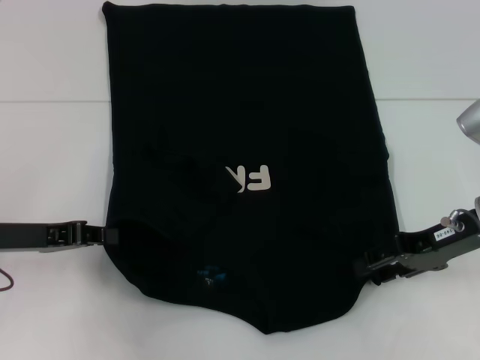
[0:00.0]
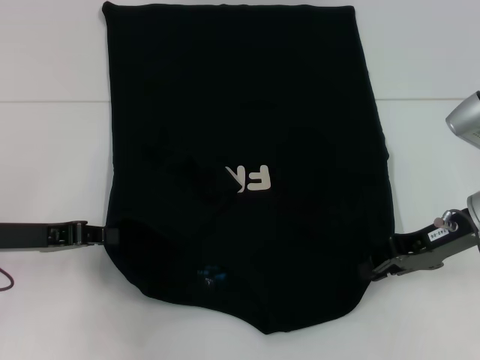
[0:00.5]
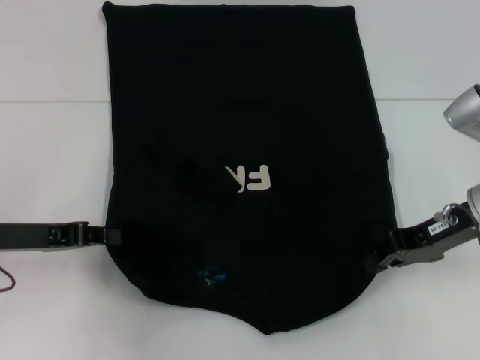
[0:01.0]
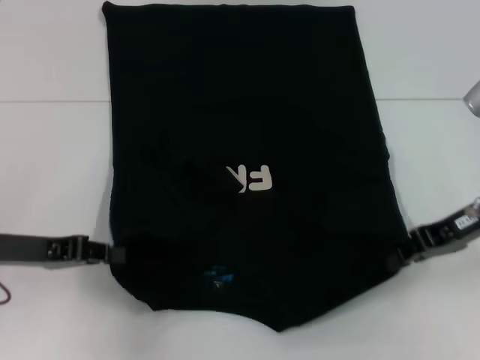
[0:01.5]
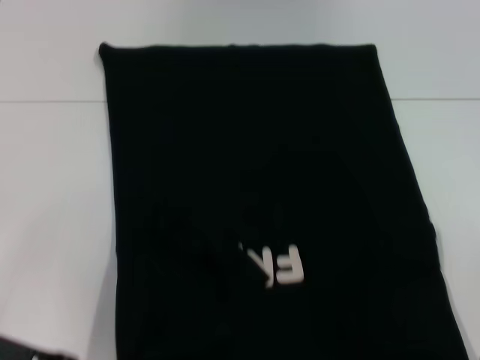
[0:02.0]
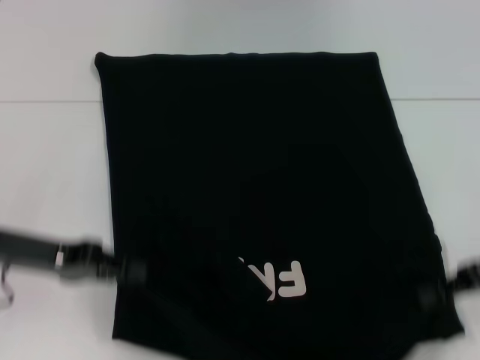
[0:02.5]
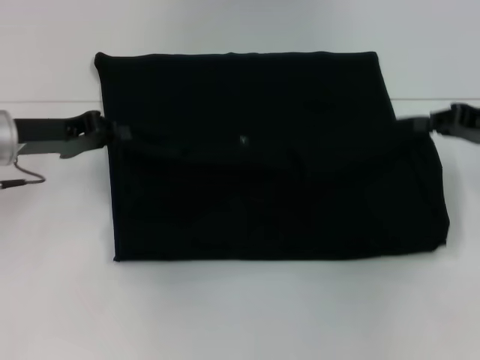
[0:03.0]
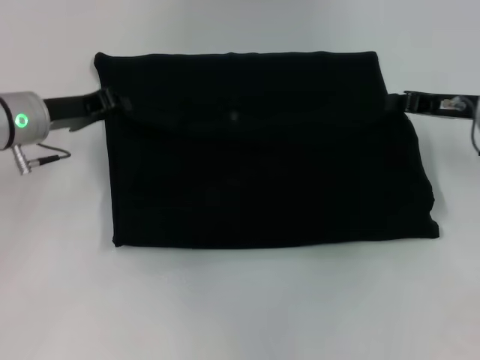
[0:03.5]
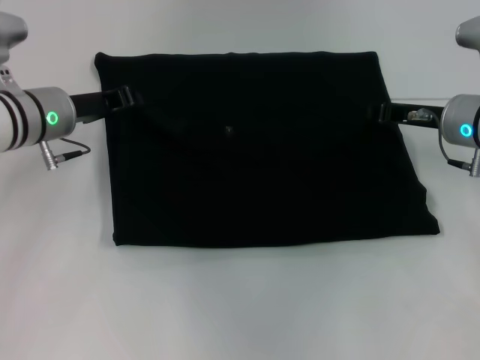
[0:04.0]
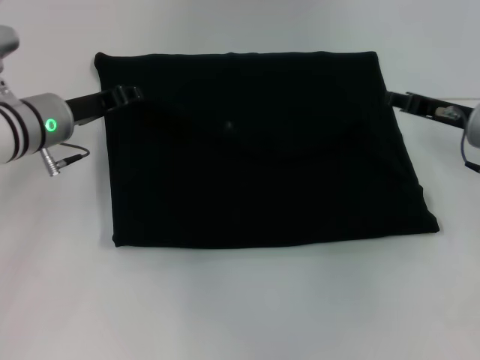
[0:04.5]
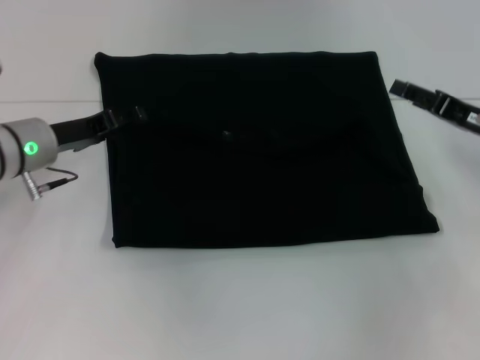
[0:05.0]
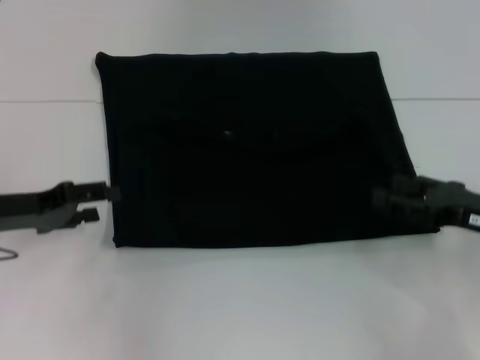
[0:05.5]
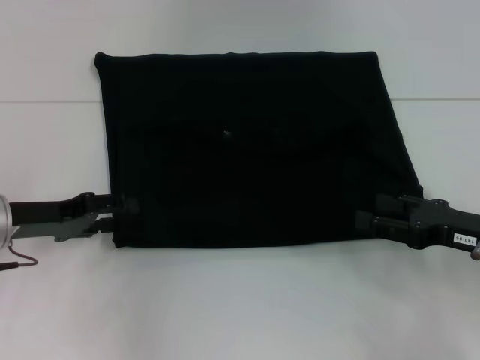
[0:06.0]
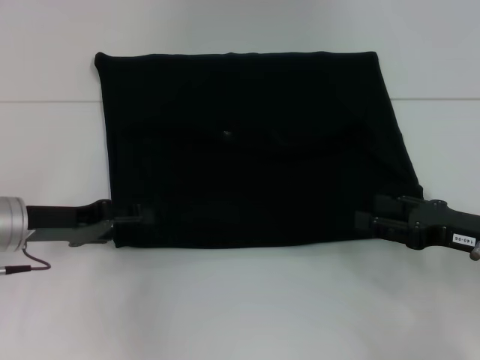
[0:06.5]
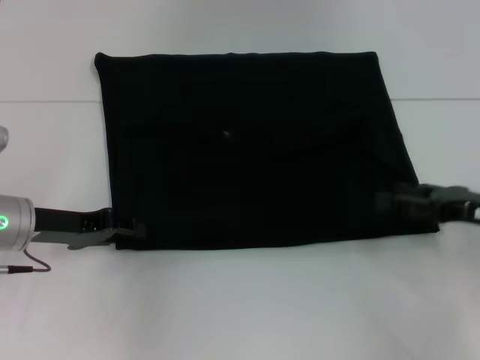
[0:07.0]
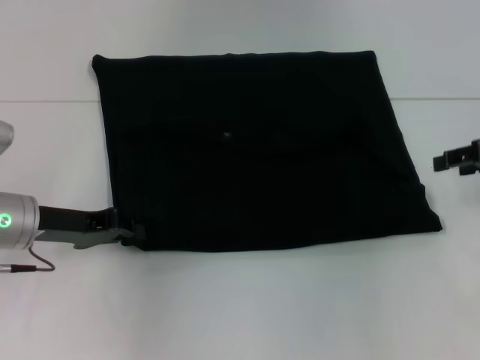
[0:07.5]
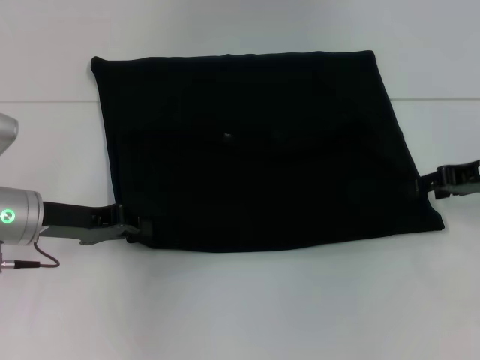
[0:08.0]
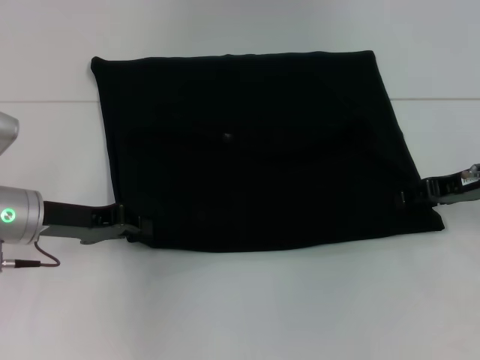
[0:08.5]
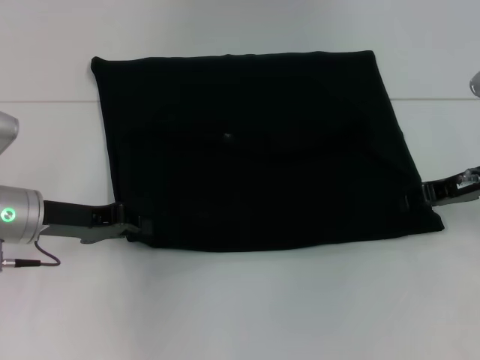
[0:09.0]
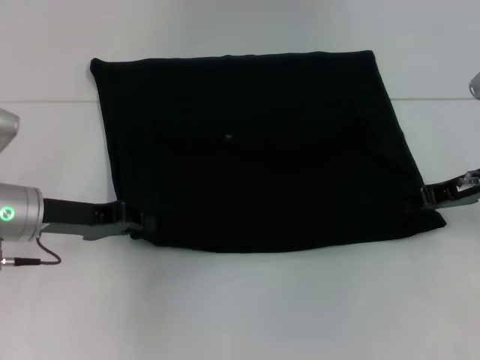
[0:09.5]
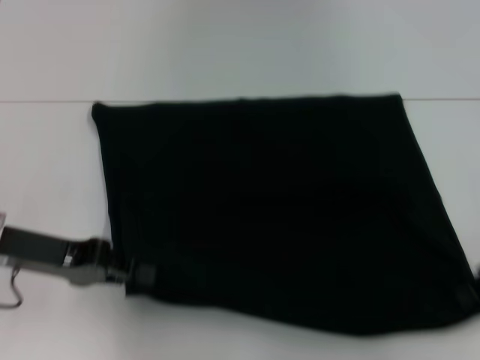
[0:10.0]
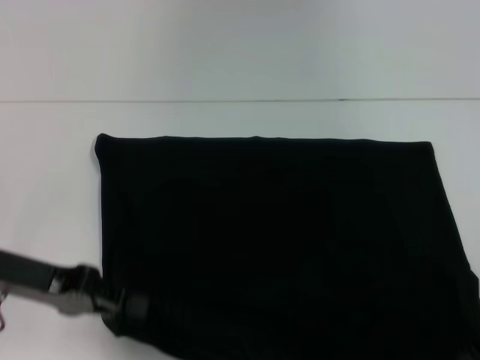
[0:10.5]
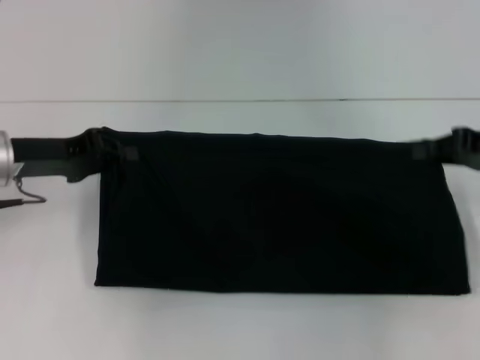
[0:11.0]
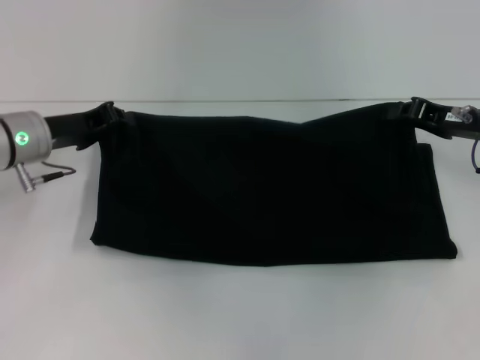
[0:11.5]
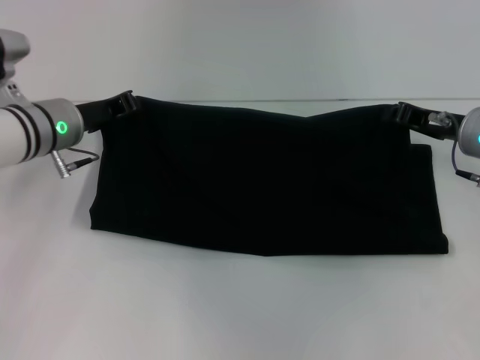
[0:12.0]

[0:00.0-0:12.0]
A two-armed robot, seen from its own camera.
Step, 0.5 to 4.5 s: Fold the clothes with your left hand.
Step, 0.5 to 4.5 s: Fold the clothes with your right hand.
Step, 5.0 to 10.0 s: Pull the clothes with your left hand.
Step, 5.0 to 10.0 s: Pull the clothes with your right hand.
0.0 to 2.0 s: Both grippers move backward, about 5 cm. The right gripper closes up.
2.0 to 4.0 s: The right gripper heads forward and to the left, covering roughly 15 cm. The left gripper shifts some 20 cm forward.
4.0 to 6.0 s: The left gripper heads backward and to the left, covering approximately 10 cm, and opens its fingers. Meanwhile the right gripper heads backward and to the right, covering about 15 cm, and opens up.
6.0 to 8.0 s: The right gripper travels forward and upward by about 10 cm. The left gripper closes up.
8.0 to 10.0 s: The right gripper moves backward, some 5 cm, and closes up, while the left gripper changes place by some 5 cm.
10.0 to 12.0 s: The left gripper is displaced forward and to the right by approximately 15 cm. The right gripper goes roughly 10 cm forward and to the left.

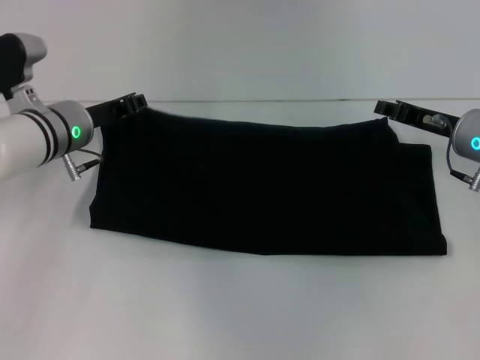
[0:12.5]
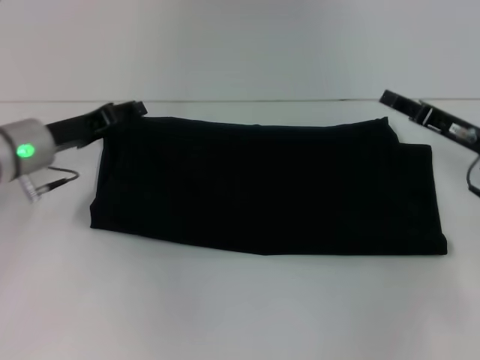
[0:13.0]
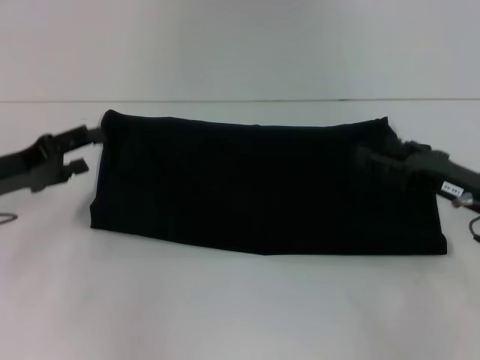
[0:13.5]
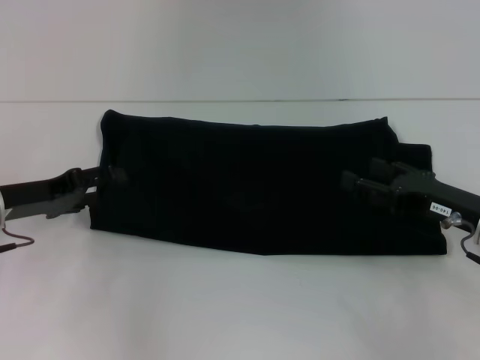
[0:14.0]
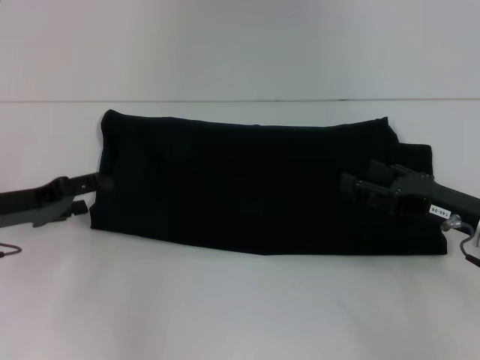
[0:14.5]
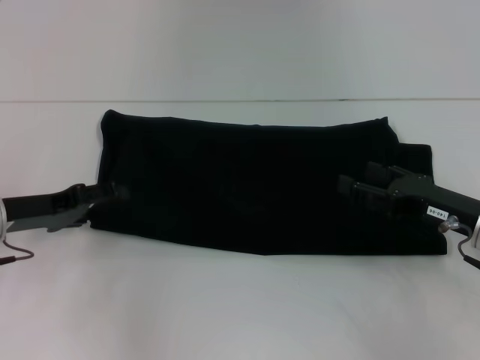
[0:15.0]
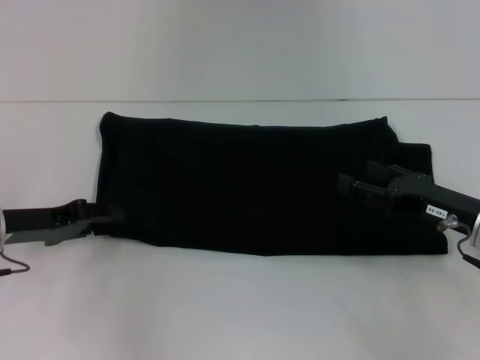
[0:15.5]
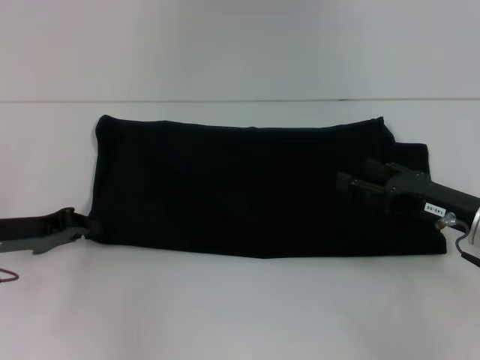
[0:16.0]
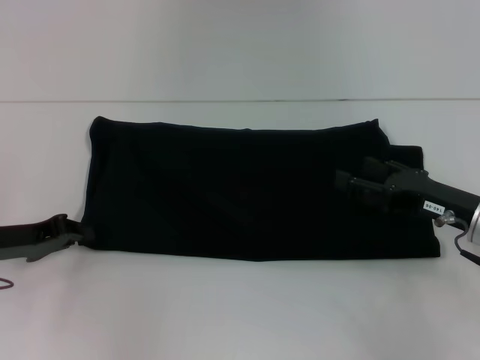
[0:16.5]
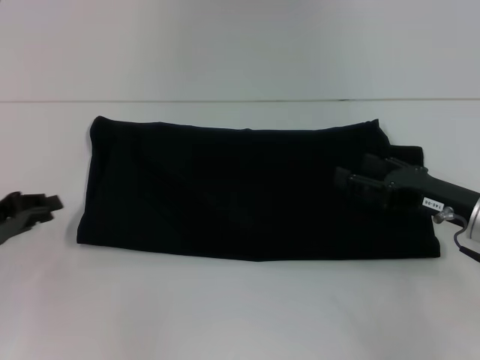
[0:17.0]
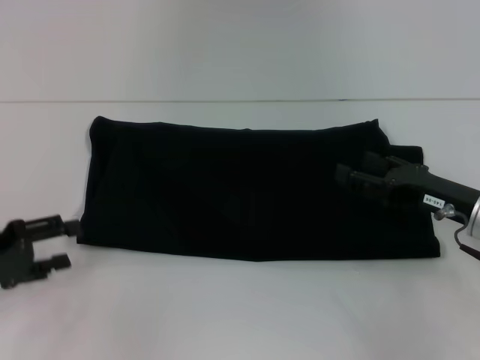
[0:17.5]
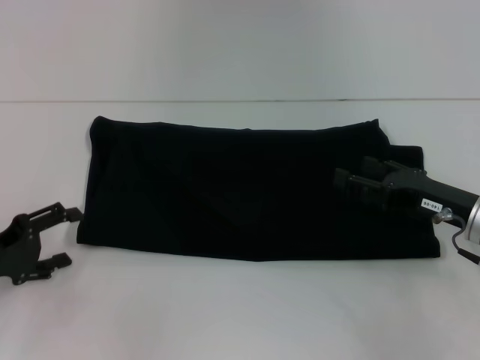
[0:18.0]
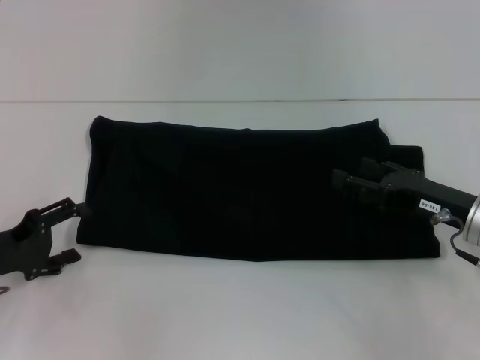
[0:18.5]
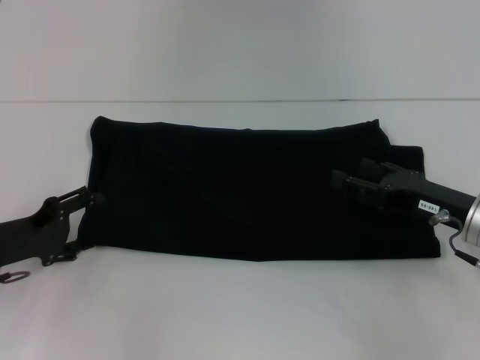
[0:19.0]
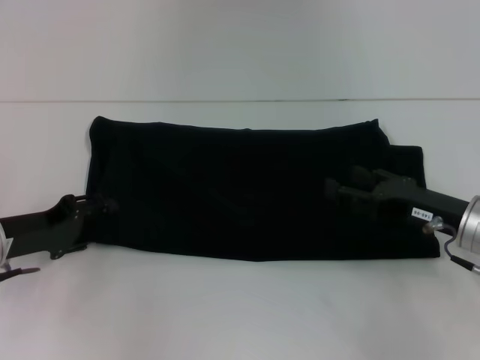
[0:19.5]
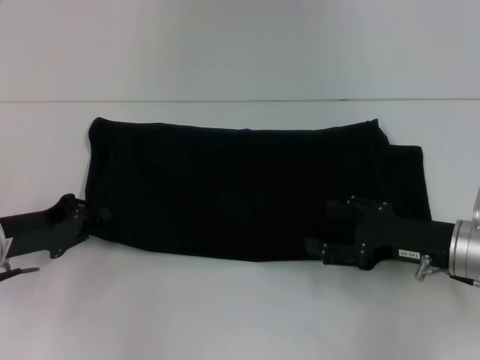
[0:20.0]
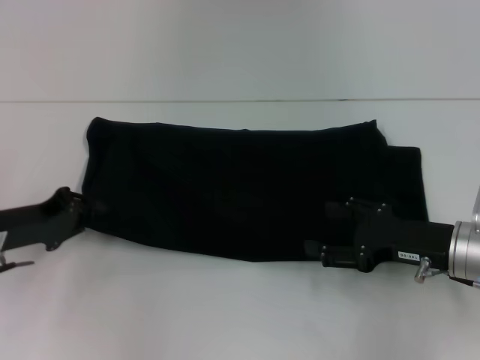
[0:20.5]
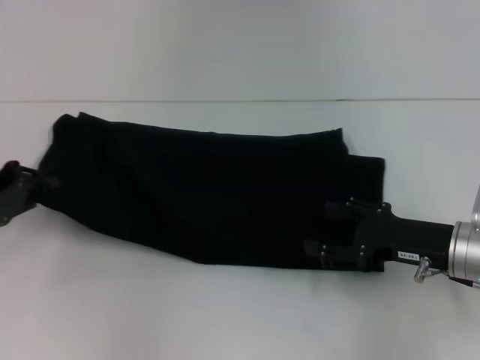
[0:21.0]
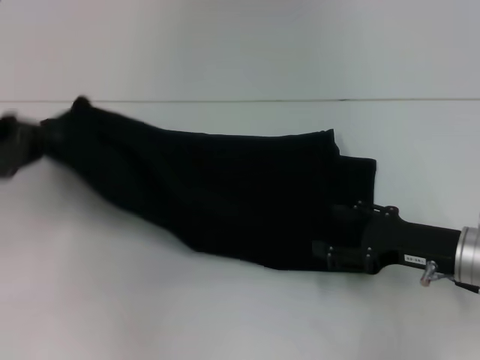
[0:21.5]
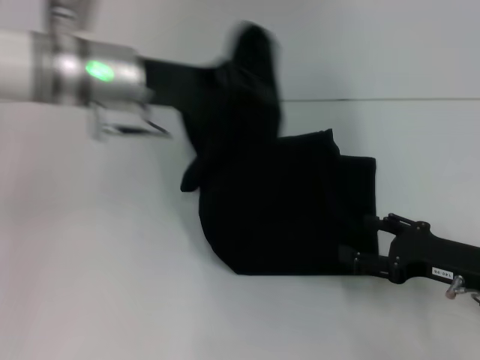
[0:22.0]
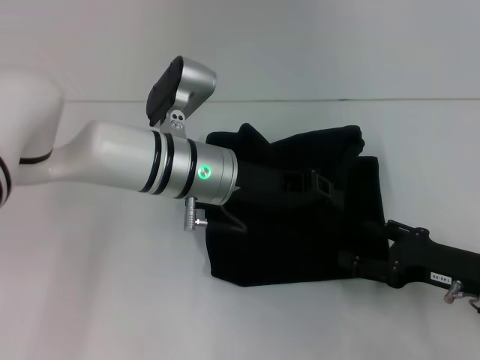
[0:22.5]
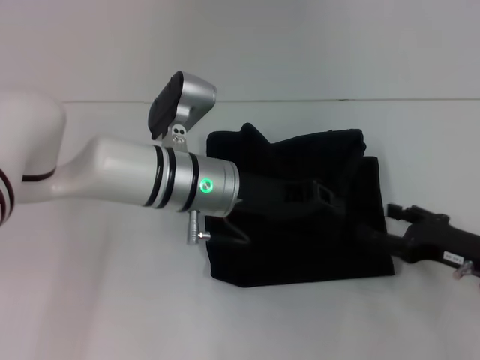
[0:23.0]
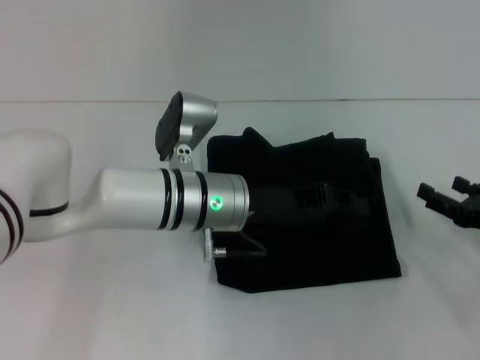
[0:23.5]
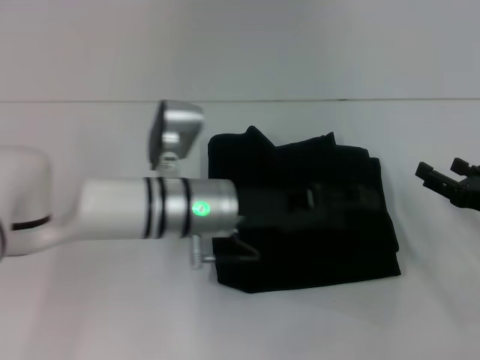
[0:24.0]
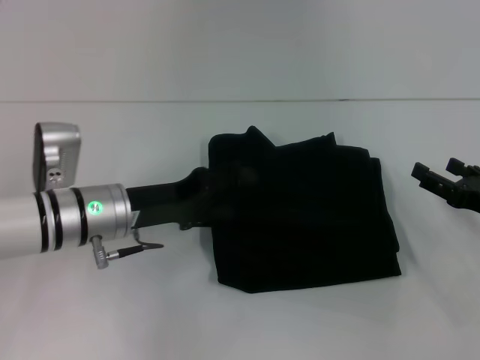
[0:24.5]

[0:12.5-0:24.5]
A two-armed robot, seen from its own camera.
Step, 12.5 to 24.0 s: Fold the clothes with your left hand.
12.5 to 14.5 s: The right gripper goes approximately 10 cm backward, and opens up. Meanwhile the left gripper is displaced to the left and backward by approximately 15 cm, and opens up.
14.5 to 16.5 s: The left gripper closes up.
16.5 to 18.5 s: The left gripper opens its fingers.
18.5 to 20.5 s: The left gripper closes up.
20.5 to 22.5 s: The left gripper shifts roughly 25 cm to the right.
22.5 to 24.5 s: The right gripper ends up roughly 5 cm from where it was. The left gripper shifts some 10 cm to the left, and opens up.

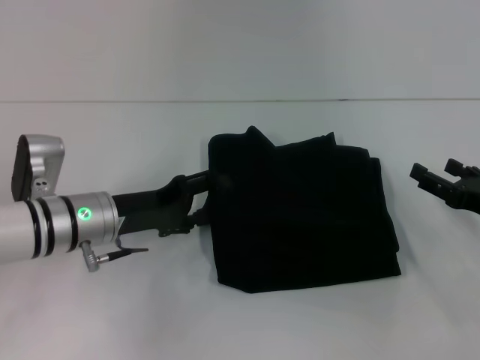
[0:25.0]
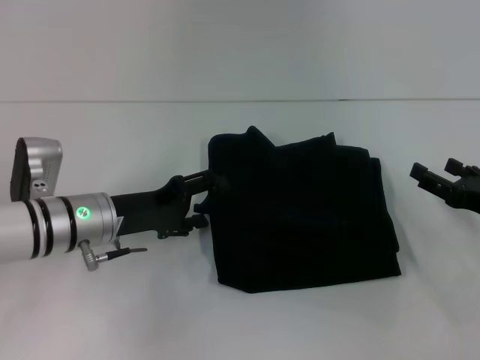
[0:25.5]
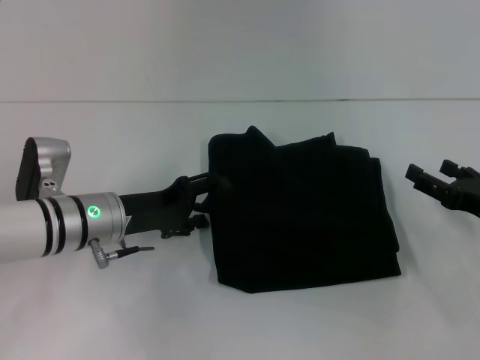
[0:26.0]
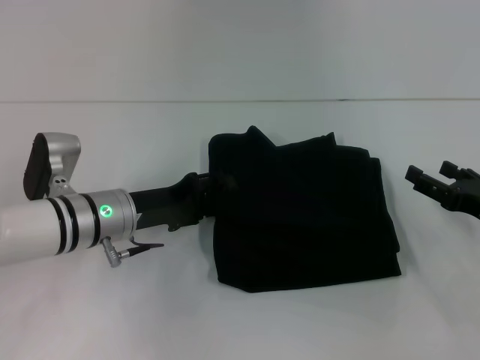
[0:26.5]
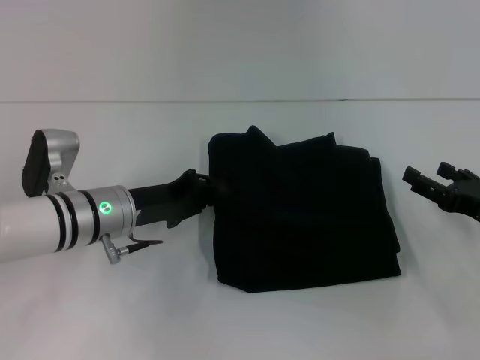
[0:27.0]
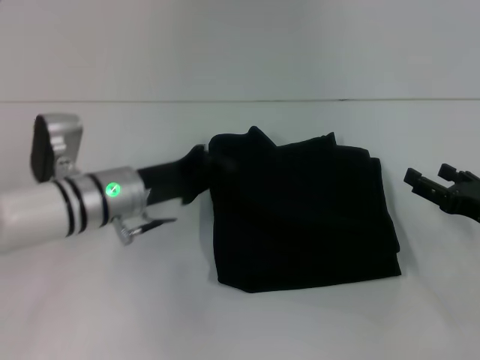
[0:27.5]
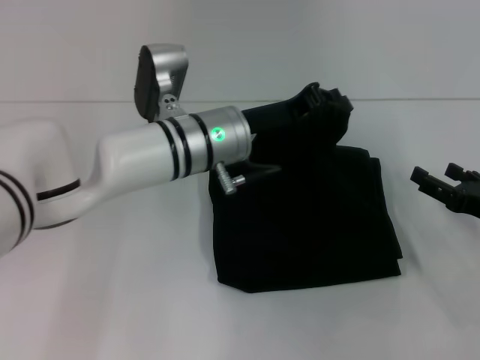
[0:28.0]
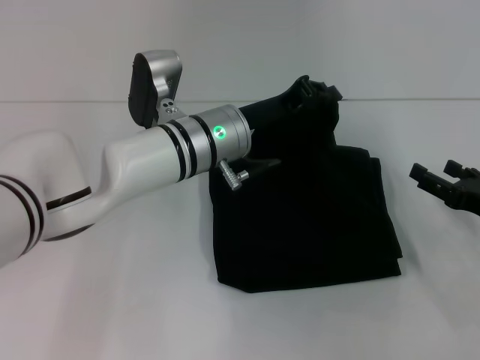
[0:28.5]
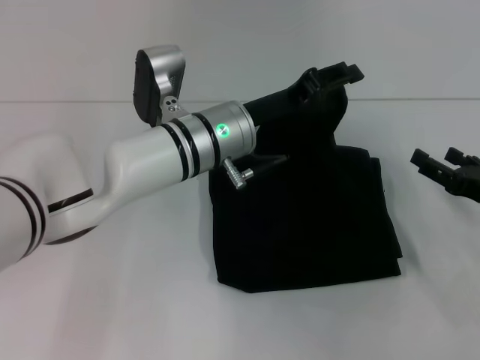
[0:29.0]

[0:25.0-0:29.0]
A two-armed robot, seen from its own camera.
25.0 to 27.0 s: The left gripper closes its fingers.
27.0 to 29.0 s: The left gripper goes some 15 cm to the right and upward, and closes, then opens again.
